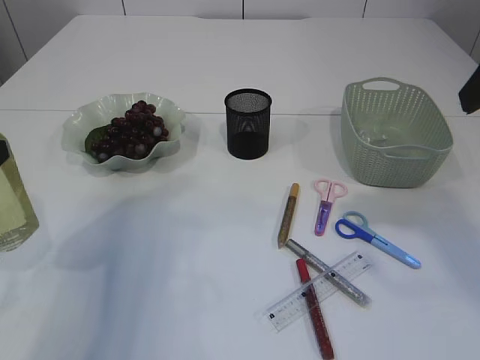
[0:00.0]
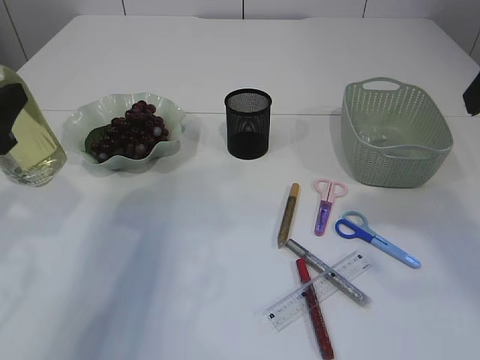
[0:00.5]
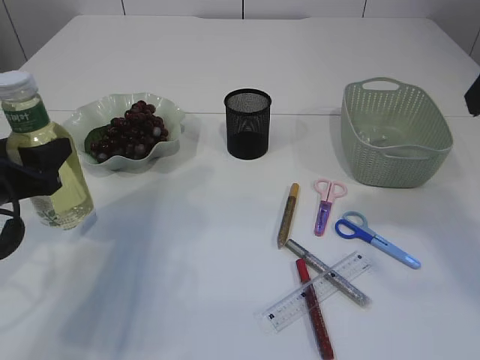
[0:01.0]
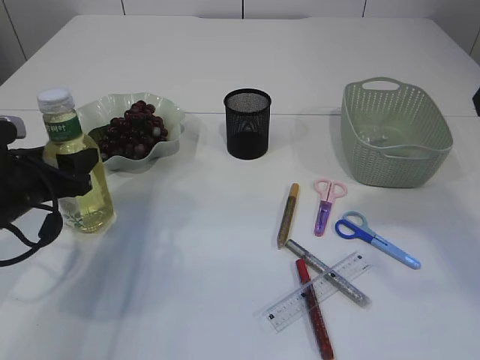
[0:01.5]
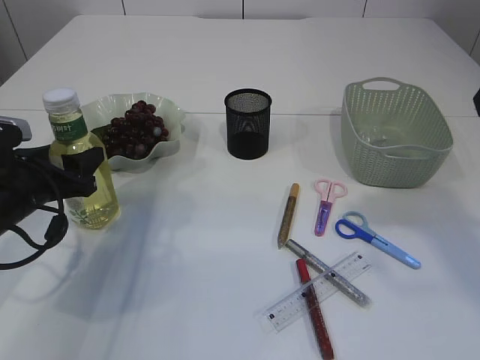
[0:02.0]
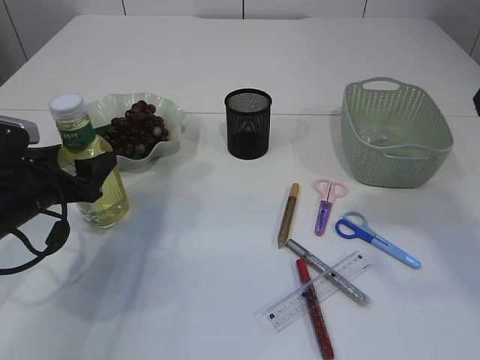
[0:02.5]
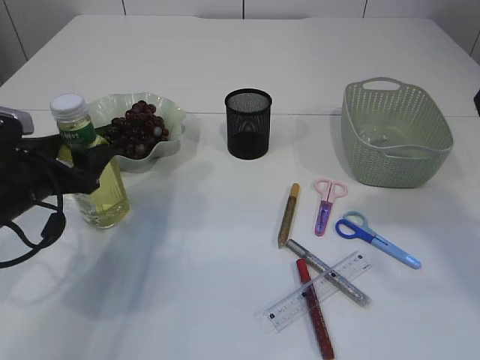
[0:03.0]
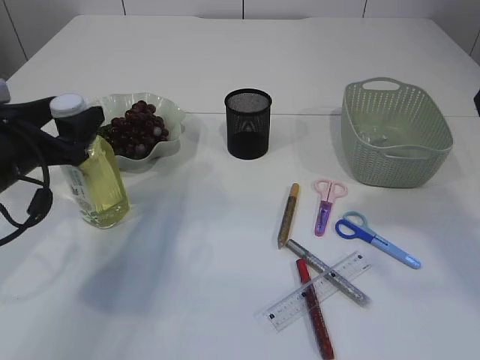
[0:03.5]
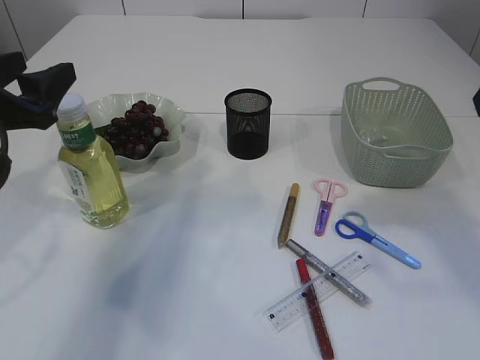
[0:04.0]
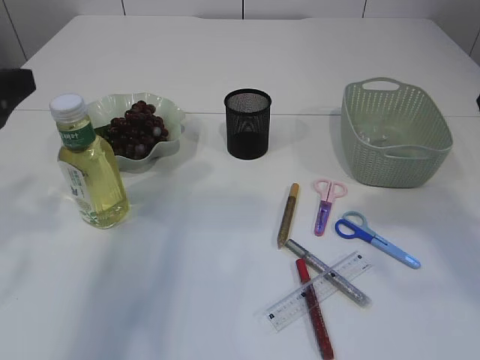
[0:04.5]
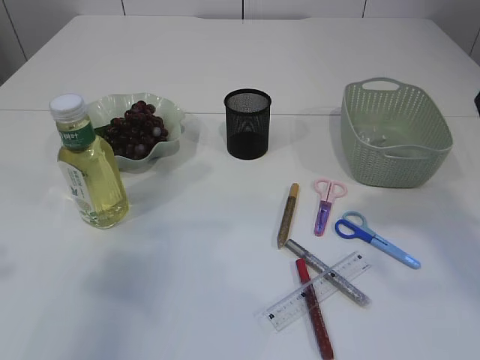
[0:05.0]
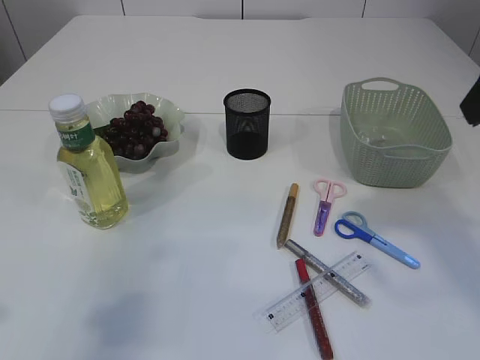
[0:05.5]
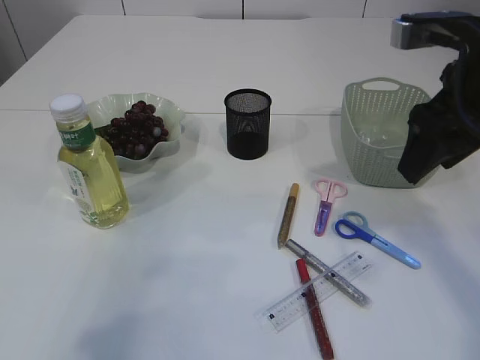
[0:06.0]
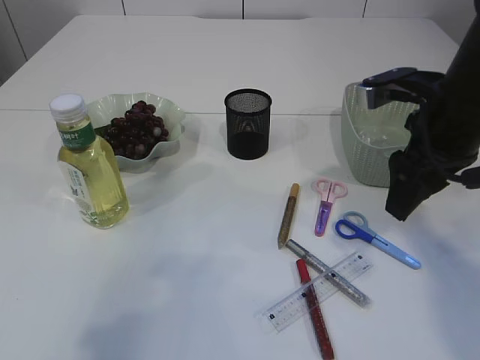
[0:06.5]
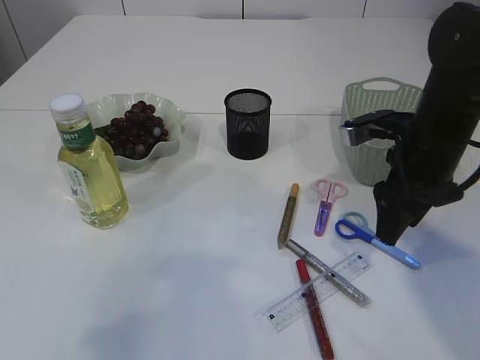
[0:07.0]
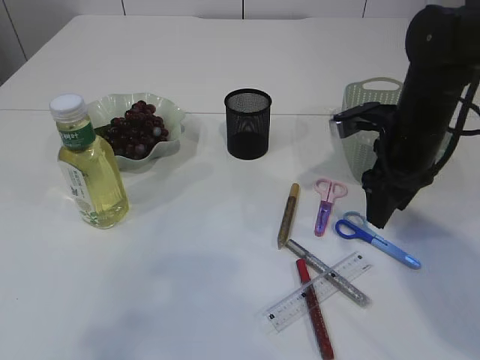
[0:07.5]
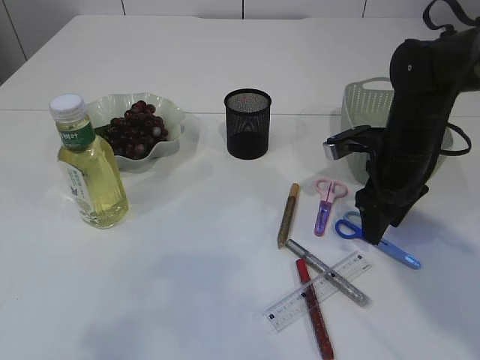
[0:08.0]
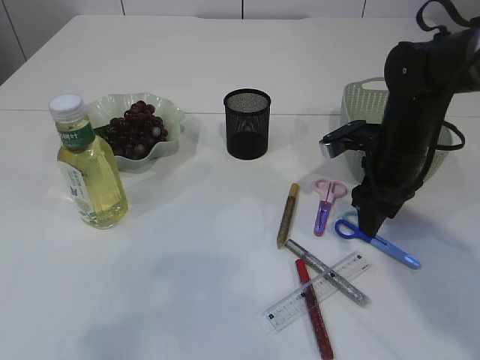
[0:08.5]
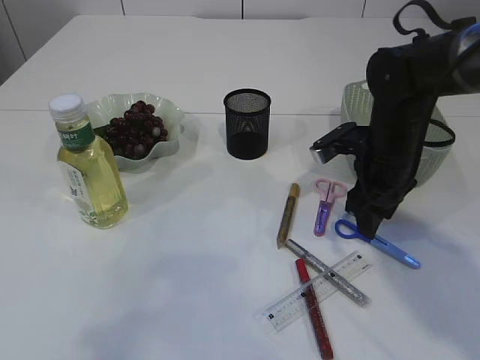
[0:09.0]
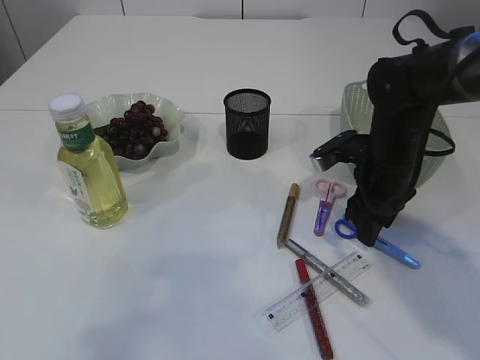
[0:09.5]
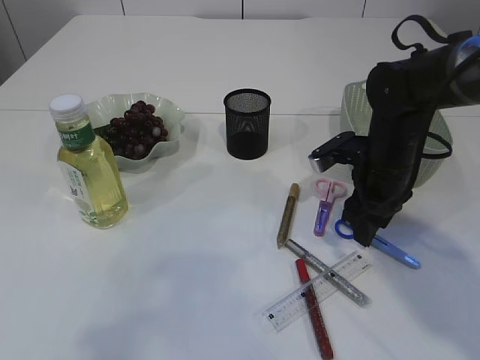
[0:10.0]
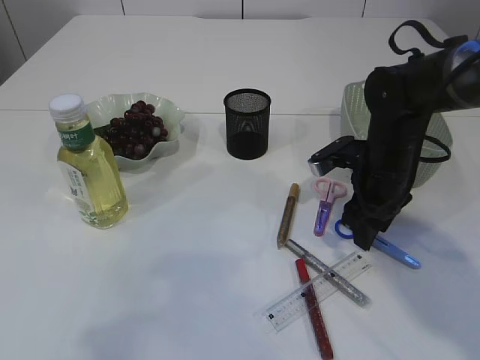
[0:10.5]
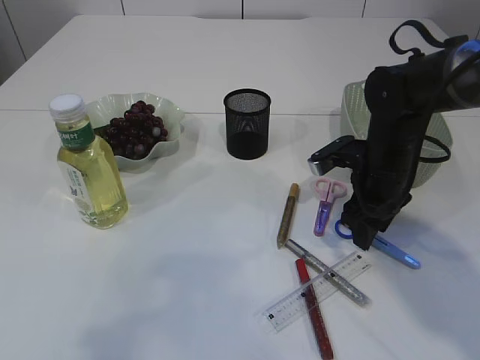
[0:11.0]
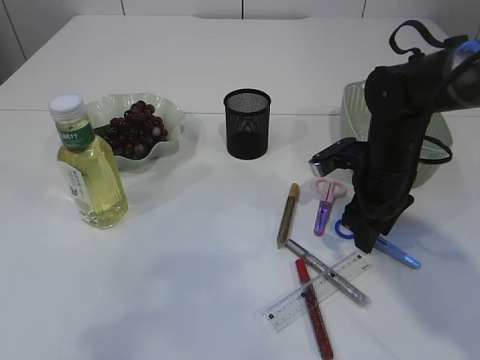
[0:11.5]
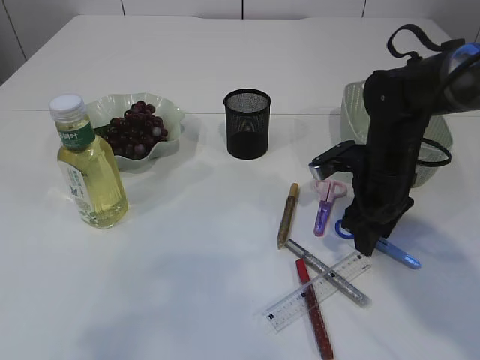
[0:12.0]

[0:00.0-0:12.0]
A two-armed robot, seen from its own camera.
Step, 0:00.0 to 0:03.5: Place the bottle.
0:00.0 to 0:02.0: The left gripper shifts approximately 15 cm downward and forward.
0:02.0 to 0:04.0: The left gripper goes roughly 10 cm upward.
0:04.0 to 0:06.0: The left gripper moves backward and upward, some 15 cm, and closes up; the right gripper goes about 5 cm downward.
0:06.0 to 0:08.0: The right gripper goes roughly 20 cm downward and forward.
0:08.0 to 0:10.0: The grippers stay close to where they were, moving slightly.
0:10.0 to 0:12.0: Both grippers stay about where they are.

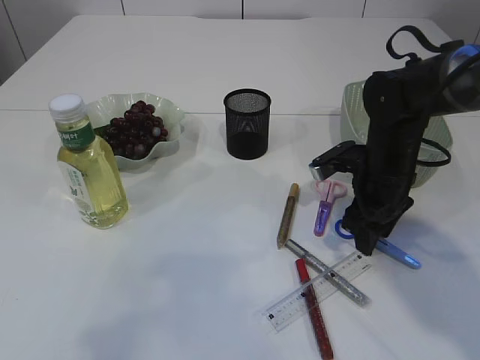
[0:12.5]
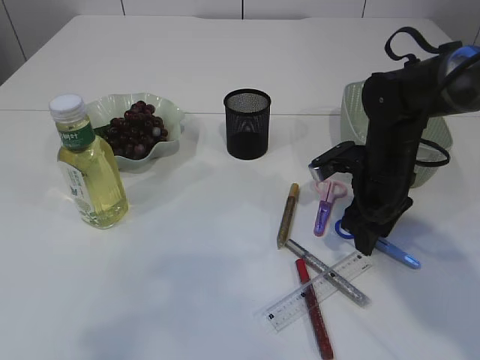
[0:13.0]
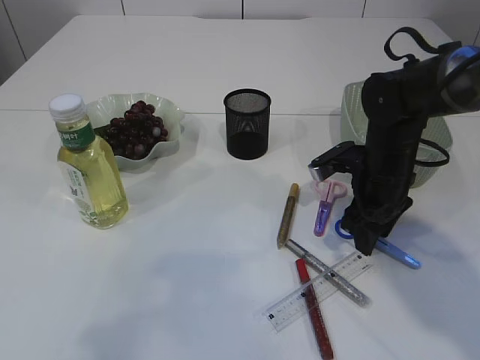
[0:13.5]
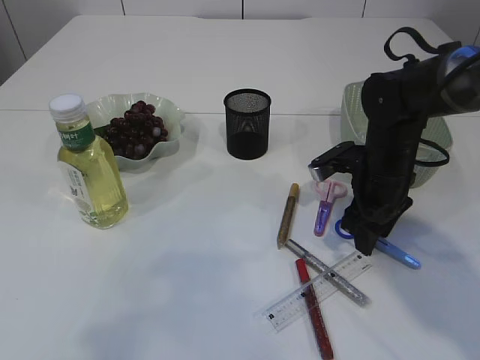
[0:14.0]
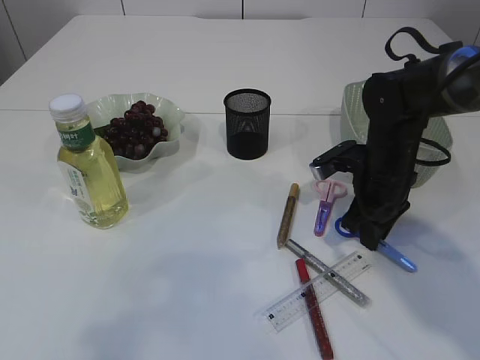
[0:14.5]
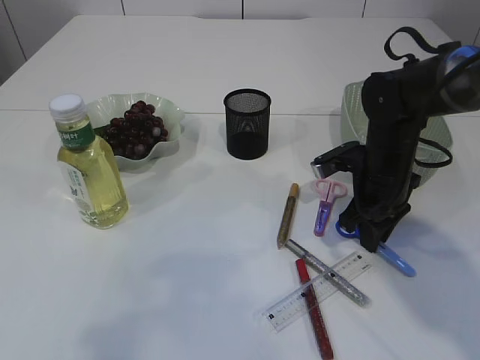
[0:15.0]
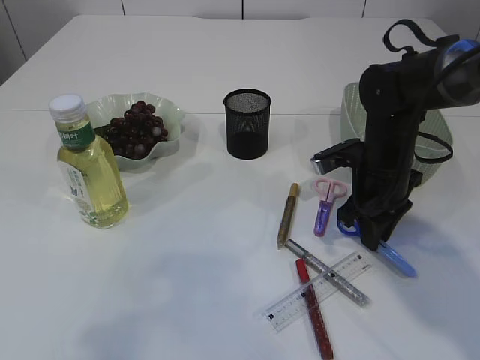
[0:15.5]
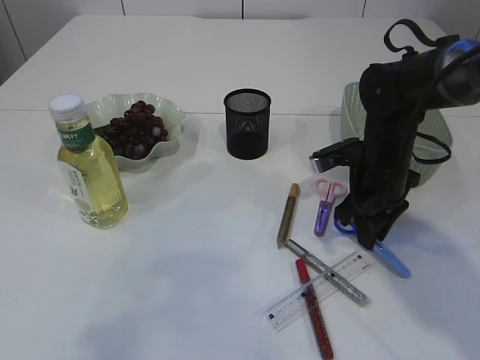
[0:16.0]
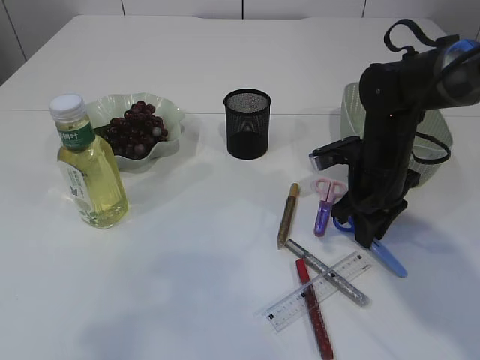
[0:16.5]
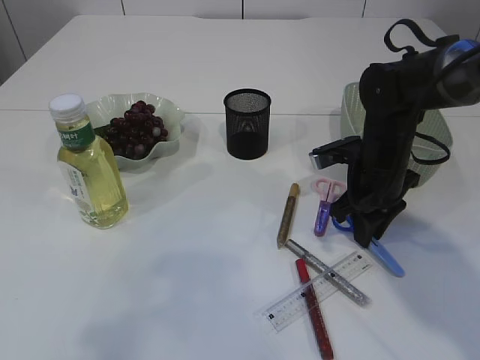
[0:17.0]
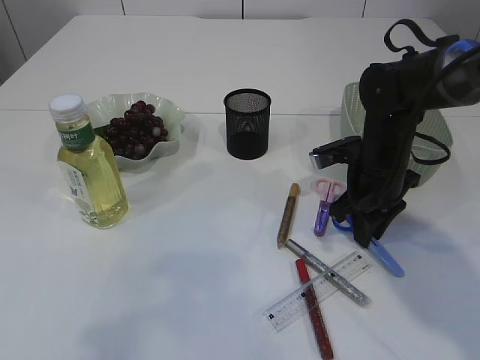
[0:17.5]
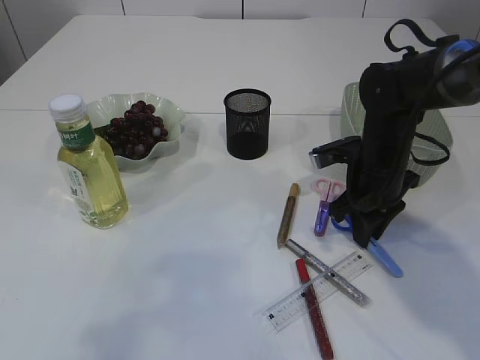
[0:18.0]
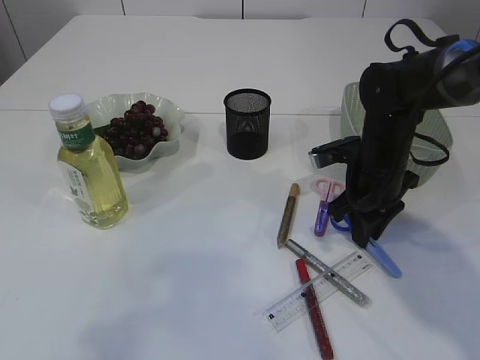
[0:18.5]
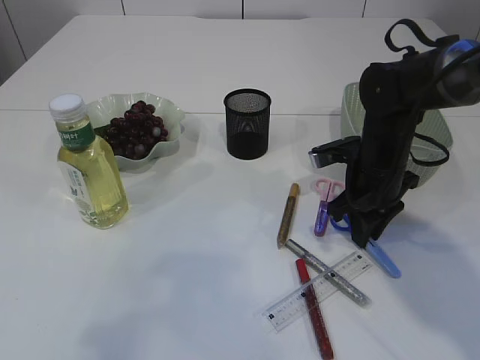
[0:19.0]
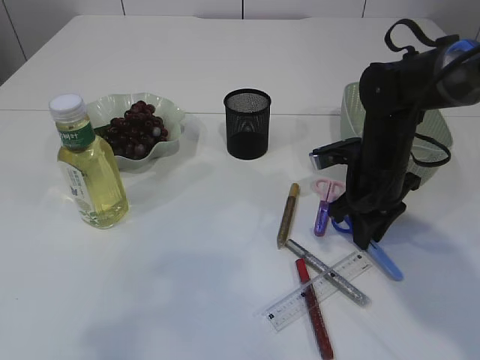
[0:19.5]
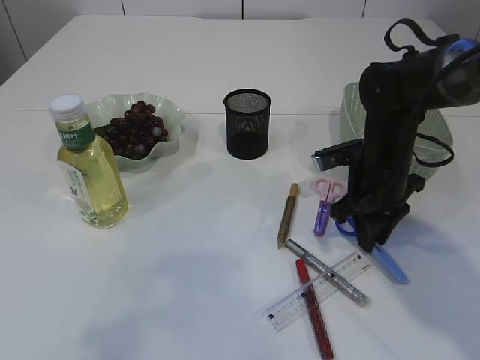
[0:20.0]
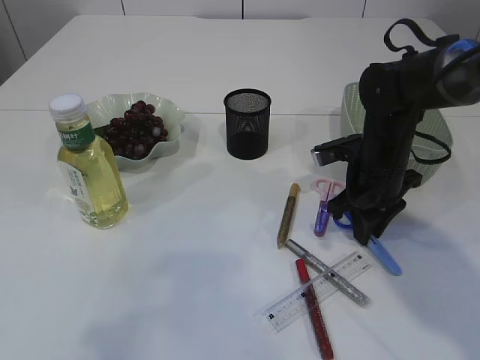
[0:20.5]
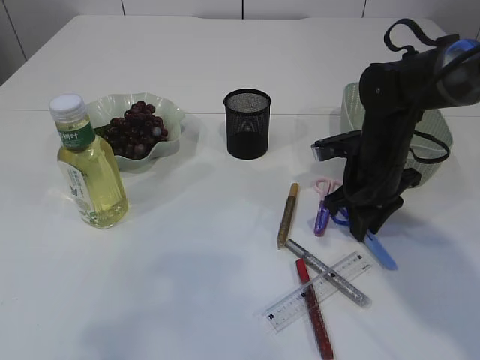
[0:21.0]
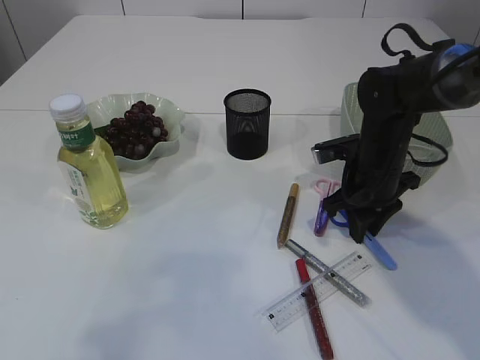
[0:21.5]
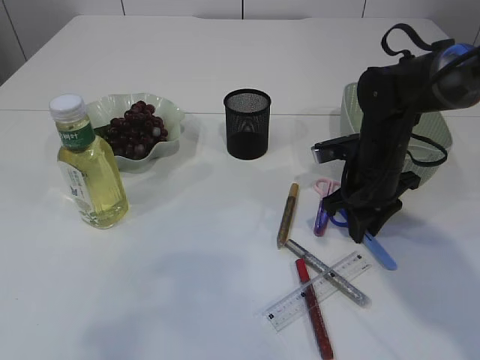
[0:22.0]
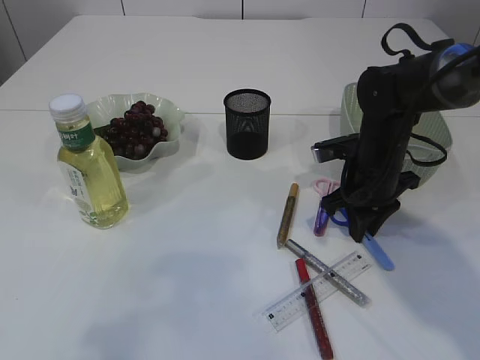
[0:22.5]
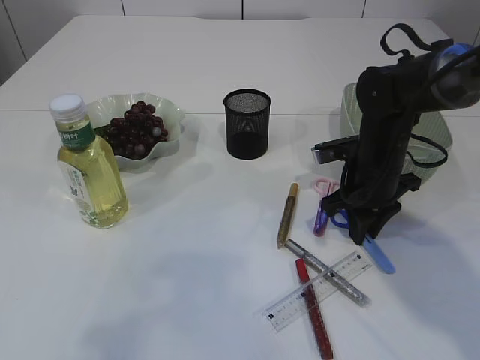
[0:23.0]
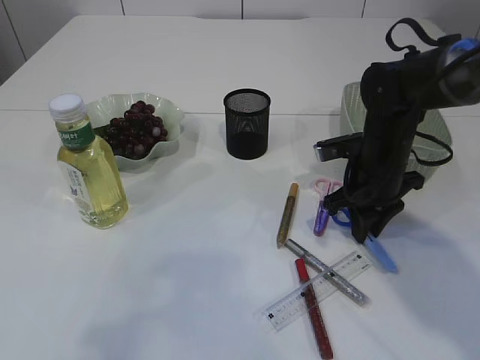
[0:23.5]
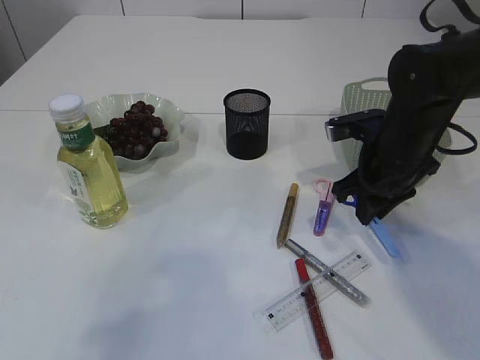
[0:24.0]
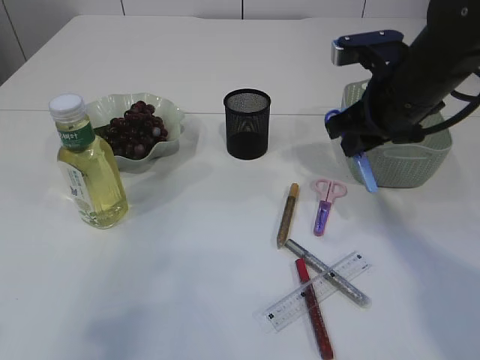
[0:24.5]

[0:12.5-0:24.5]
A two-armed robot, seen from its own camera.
0:12.5 to 0:14.5: The right gripper closes.
0:14.5 to 0:16.5: The grippers make only small movements.
0:16.5 to 0:18.5: Both grippers stay about where they are.
0:18.5 to 0:20.5: The two grippers keep their place.
0:20.5 to 0:22.5: There are only small adjustments of the grippers.
0:22.5 to 0:24.5: The right gripper goes some 10 cm upward.

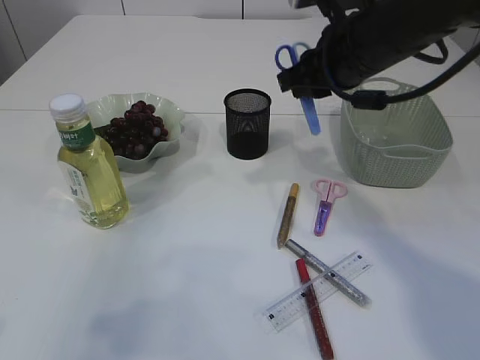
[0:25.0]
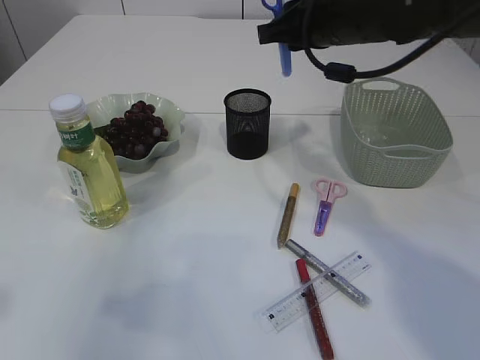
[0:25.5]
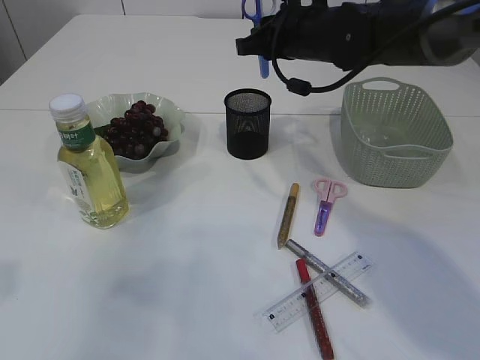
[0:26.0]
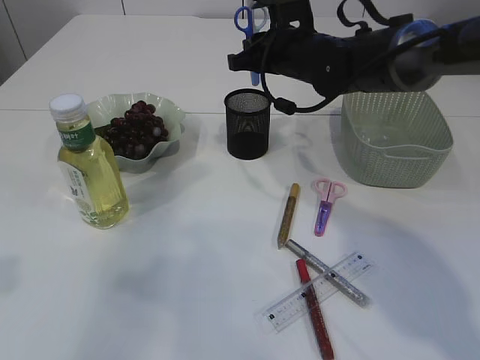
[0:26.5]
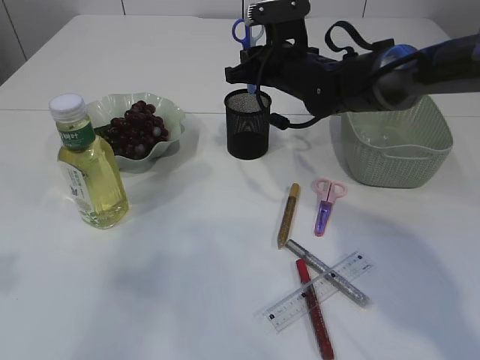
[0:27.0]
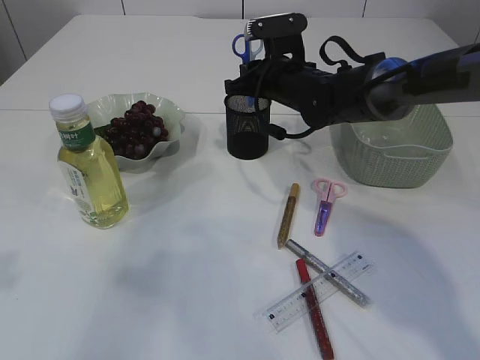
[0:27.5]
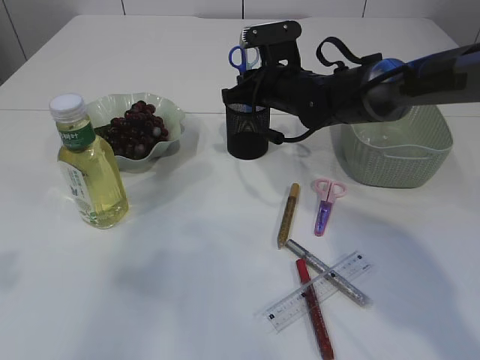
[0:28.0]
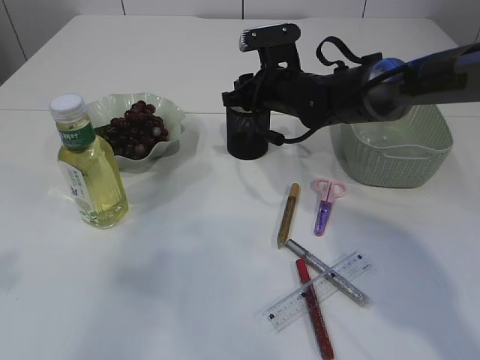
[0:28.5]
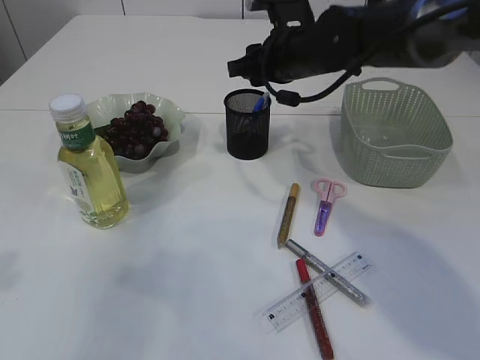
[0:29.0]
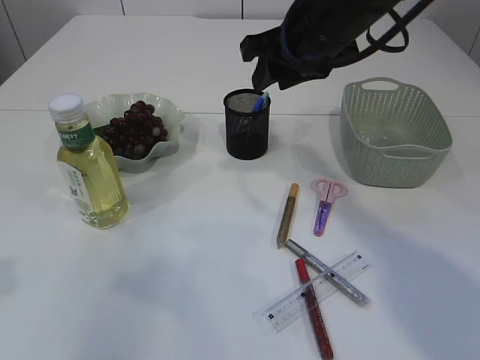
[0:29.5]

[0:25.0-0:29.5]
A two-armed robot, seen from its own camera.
Step, 0:25.0 to 0:29.0: Place the blue scissors into the pen holder.
0:25.0 to 0:27.0: The right gripper moves forward and downward, roughly 15 cm.
0:27.0 to 0:29.5: The right gripper heads upward and backward, covering approximately 15 cm.
